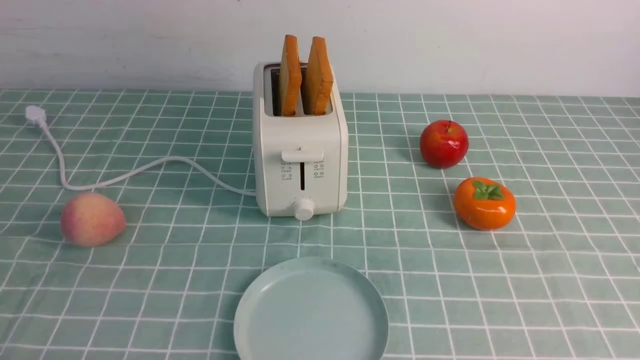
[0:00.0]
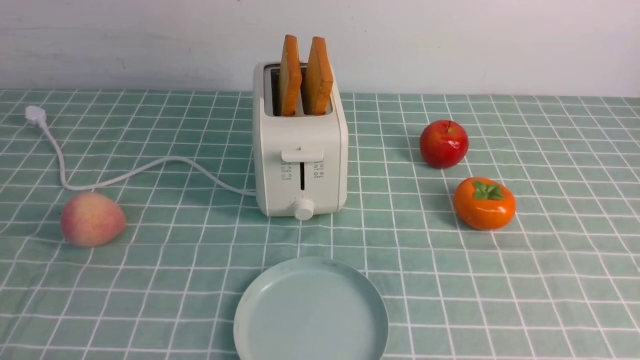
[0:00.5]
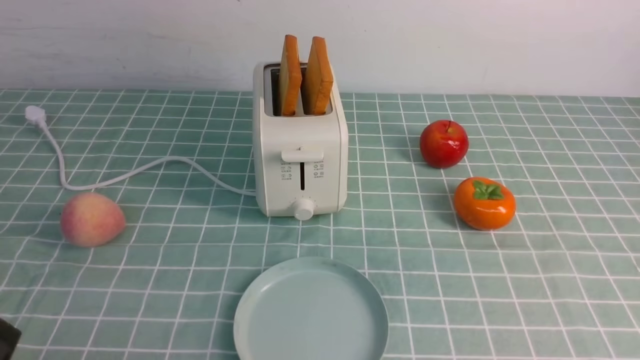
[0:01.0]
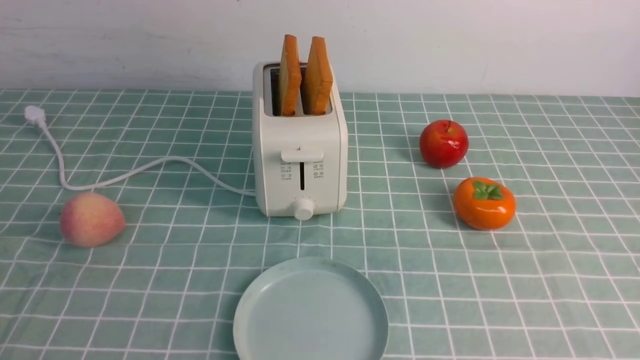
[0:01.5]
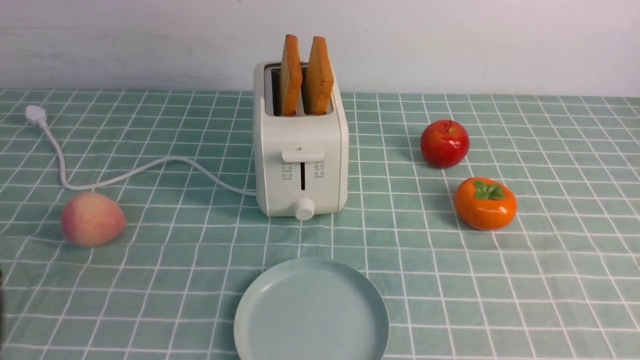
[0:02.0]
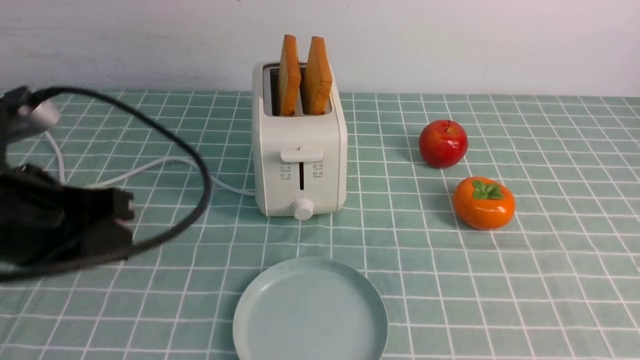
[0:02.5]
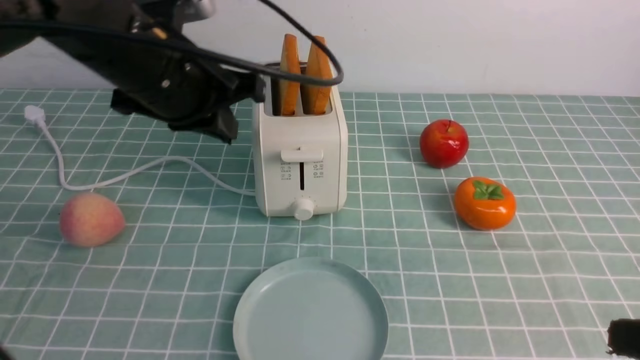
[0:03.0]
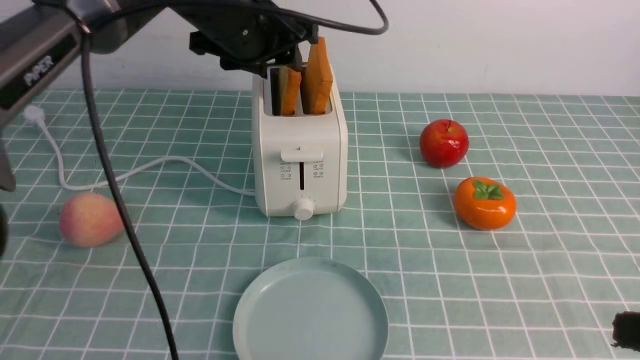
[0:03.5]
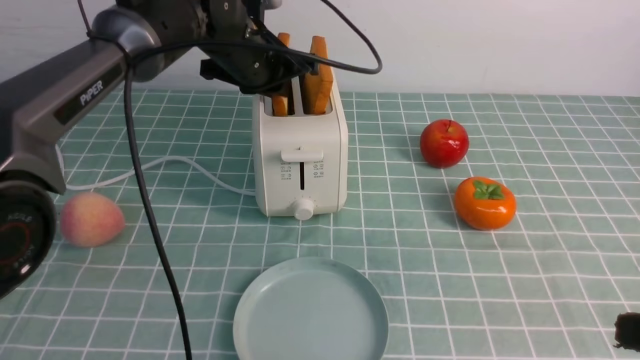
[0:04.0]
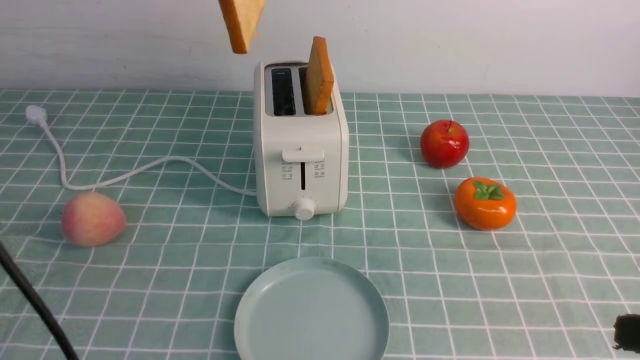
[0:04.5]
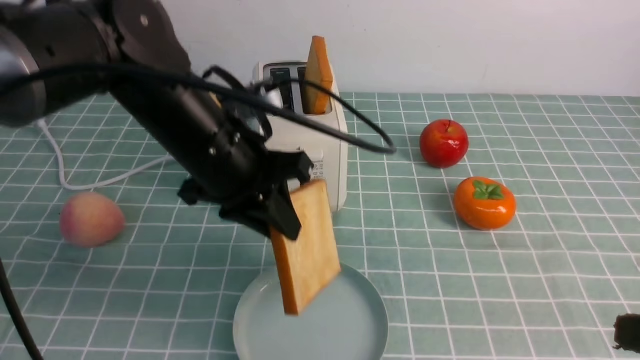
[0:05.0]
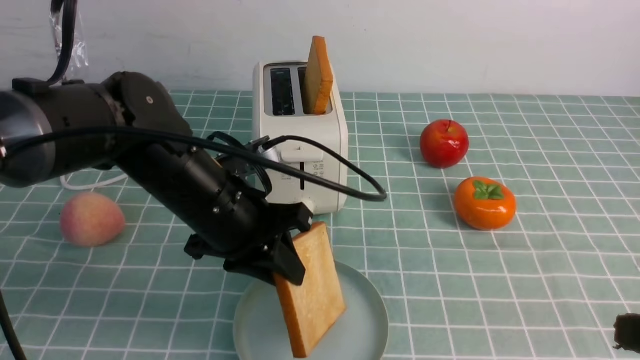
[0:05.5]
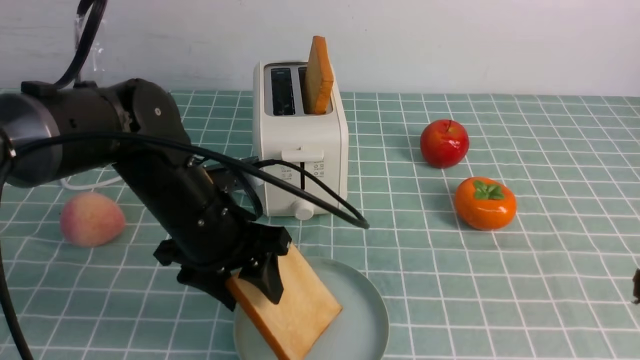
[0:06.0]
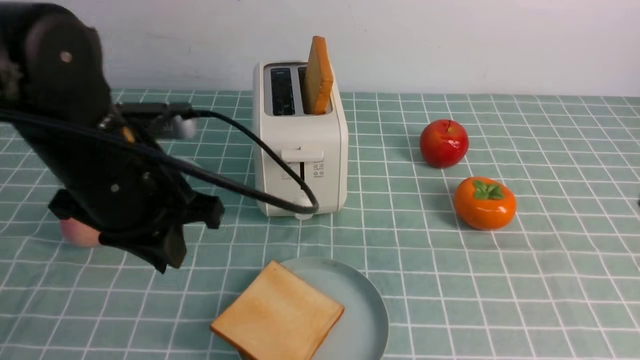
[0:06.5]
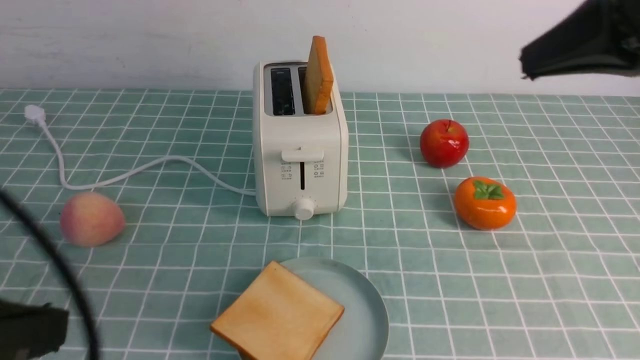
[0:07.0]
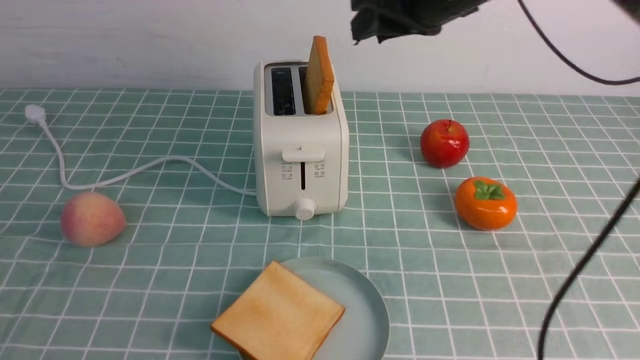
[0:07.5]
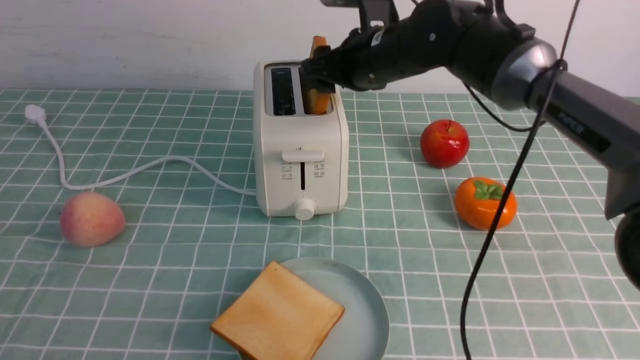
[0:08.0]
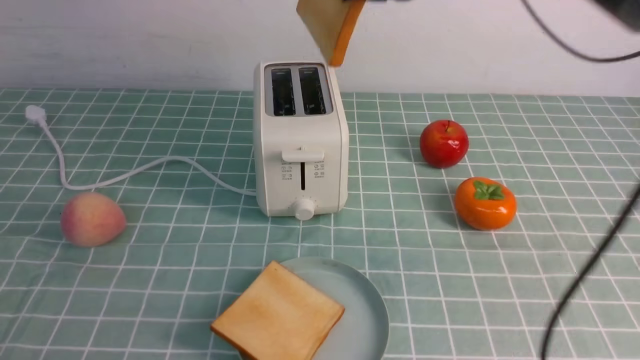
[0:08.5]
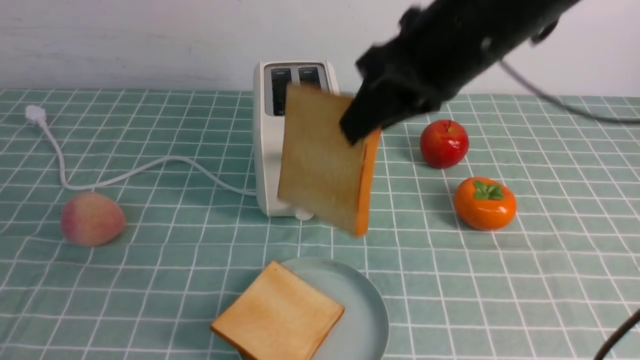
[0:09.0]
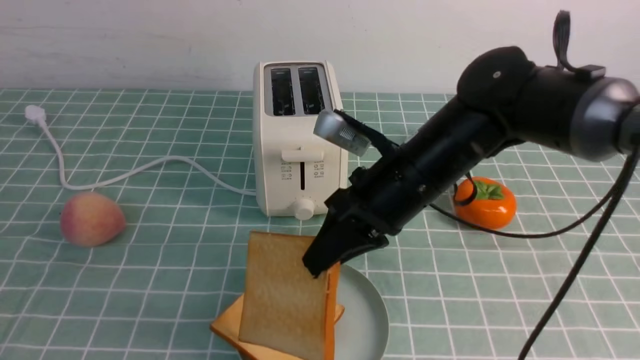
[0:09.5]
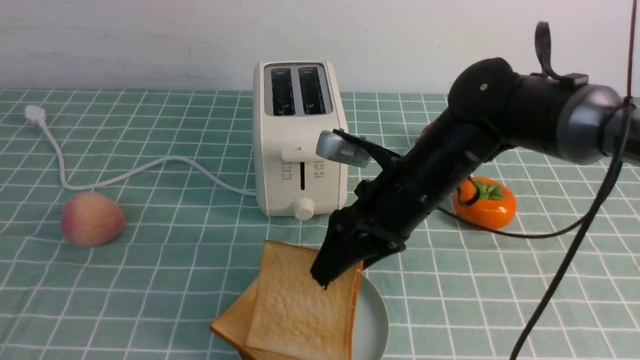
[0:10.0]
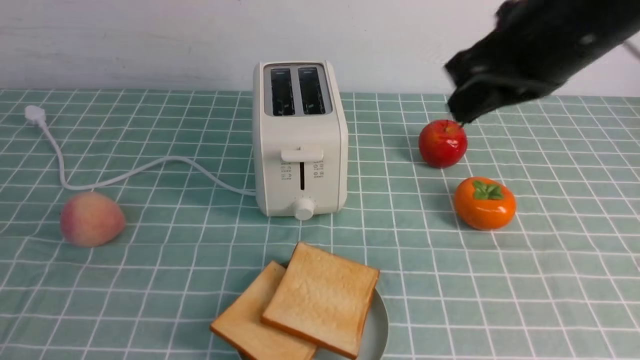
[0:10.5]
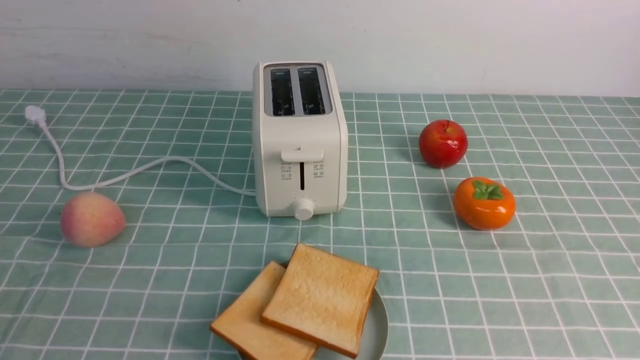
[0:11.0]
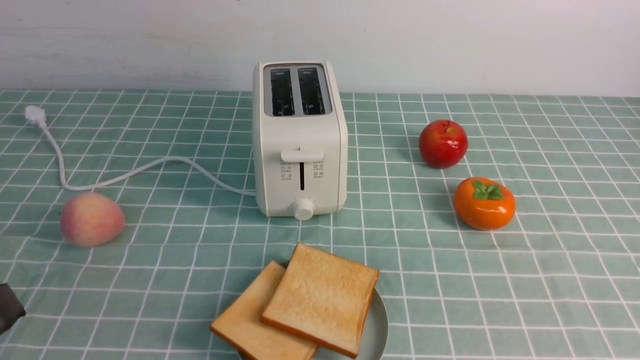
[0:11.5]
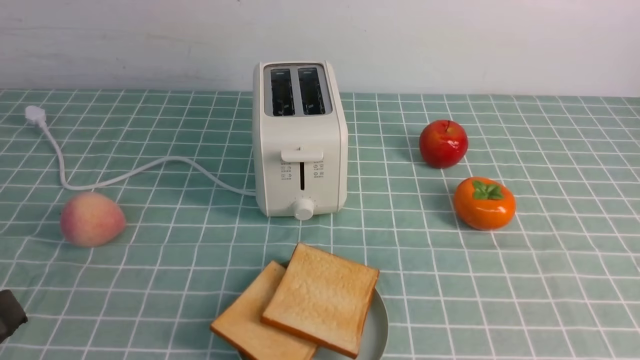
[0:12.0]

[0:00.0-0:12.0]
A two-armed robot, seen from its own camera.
Task of the whole recording: take toasted bread from bread machine on blue coffee table place on plate.
Step, 0:00.0 to 0:04.0: use the left arm to take out a slice of bread.
Step, 0:04.5 to 0:06.0: use the left arm to put a slice of bread into the empty plate.
Step, 0:06.5 to 0:08.5: use the right arm to take out a slice of bread.
Step, 0:09.0 to 0:10.5: use the right arm to put a slice of bread into the plate.
0:02.0 to 0:04.0: The left gripper moves forward, about 40 cm, and opens. The right gripper goes roughly 10 cm upward and forward, and closes.
0:04.0 to 0:06.0: The left gripper is displaced backward and downward by roughly 20 cm, and opens its fingers.
0:06.0 to 0:08.0: The left gripper goes about 35 cm backward and to the left, and closes. Meanwhile the right gripper heads forward and to the left, covering some 40 cm, and opens up.
0:08.0 to 0:10.0: The right gripper heads backward and downward, covering approximately 15 cm, and closes, then opens again.
0:10.0 to 0:12.0: The right gripper moves backward and to the right, some 35 cm, and closes.
